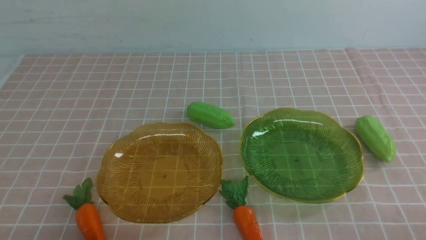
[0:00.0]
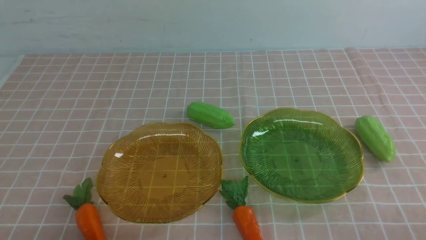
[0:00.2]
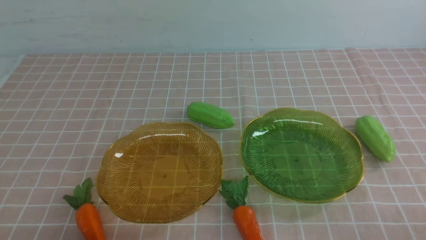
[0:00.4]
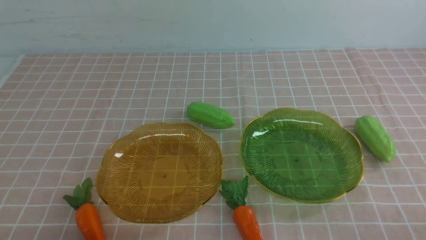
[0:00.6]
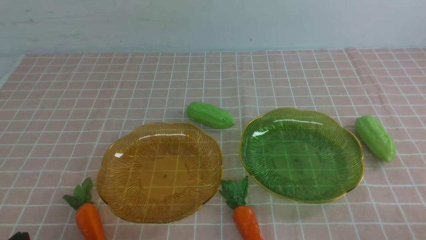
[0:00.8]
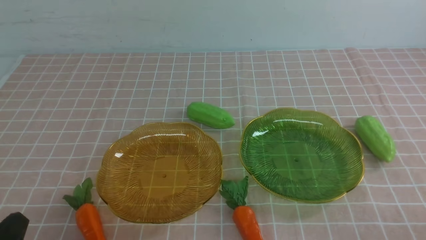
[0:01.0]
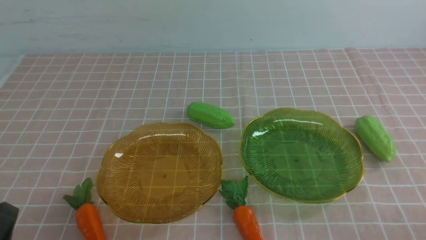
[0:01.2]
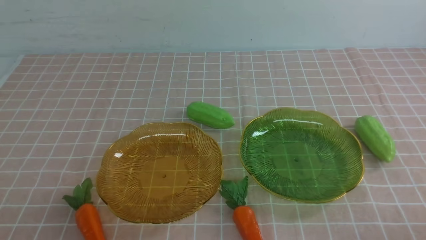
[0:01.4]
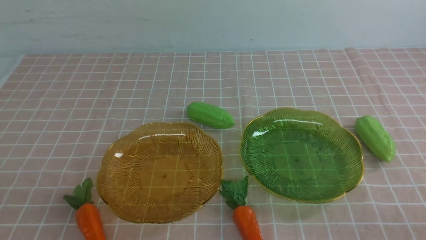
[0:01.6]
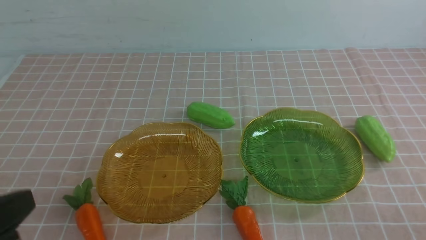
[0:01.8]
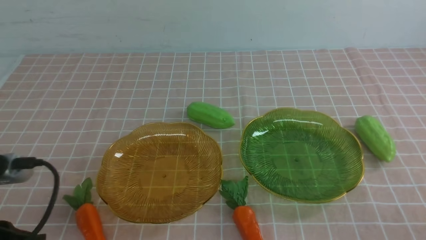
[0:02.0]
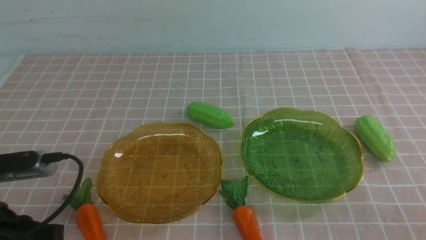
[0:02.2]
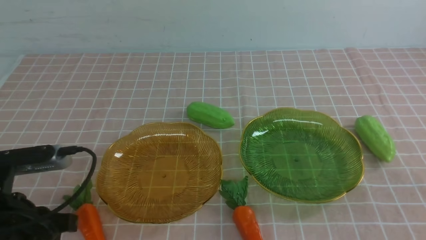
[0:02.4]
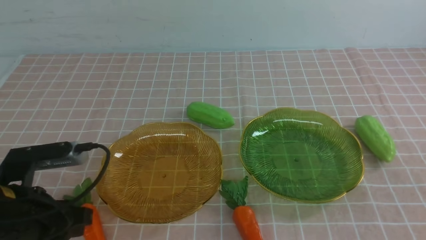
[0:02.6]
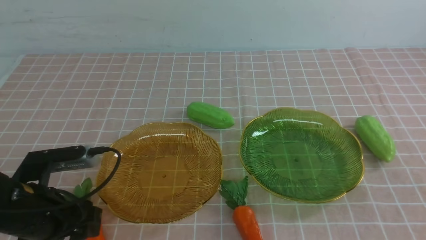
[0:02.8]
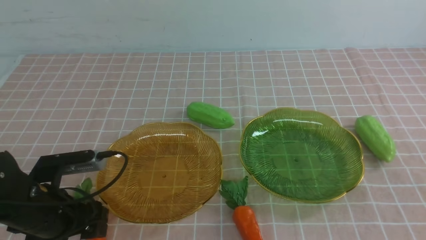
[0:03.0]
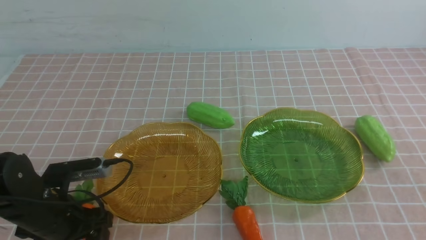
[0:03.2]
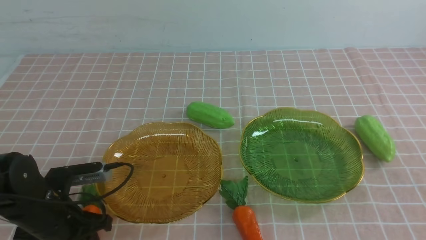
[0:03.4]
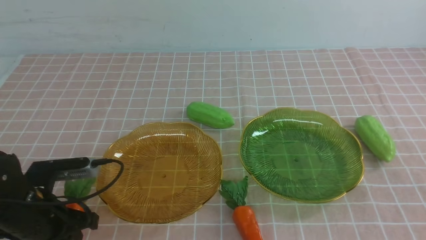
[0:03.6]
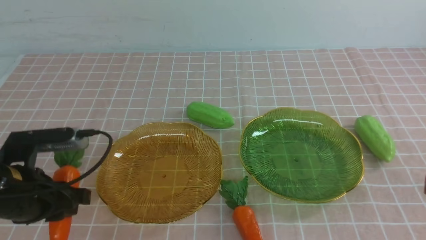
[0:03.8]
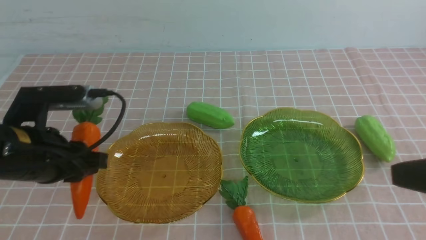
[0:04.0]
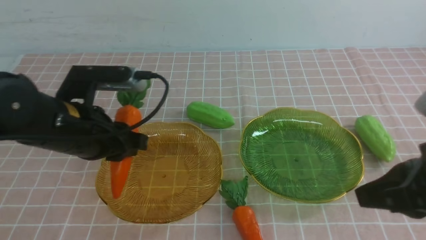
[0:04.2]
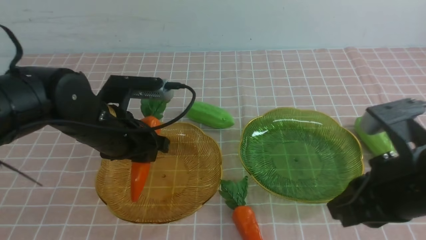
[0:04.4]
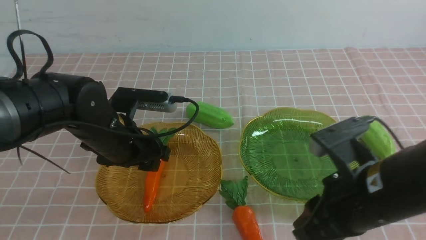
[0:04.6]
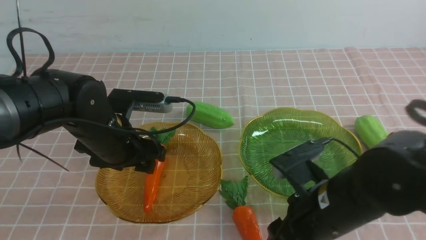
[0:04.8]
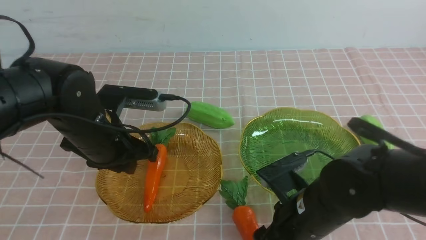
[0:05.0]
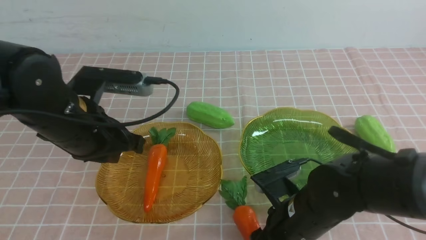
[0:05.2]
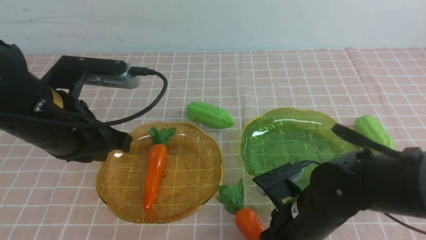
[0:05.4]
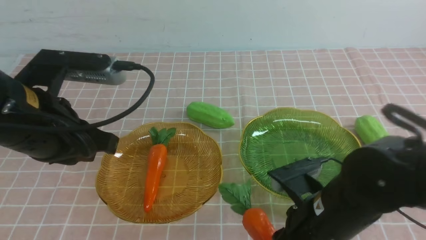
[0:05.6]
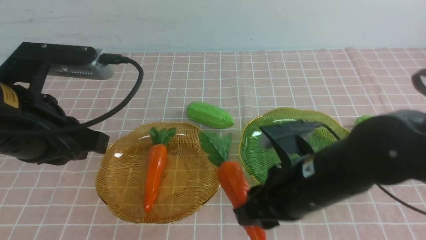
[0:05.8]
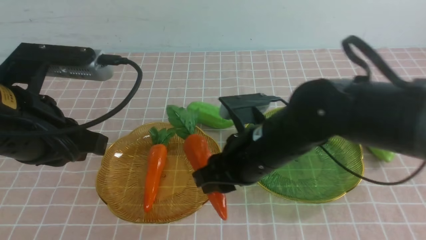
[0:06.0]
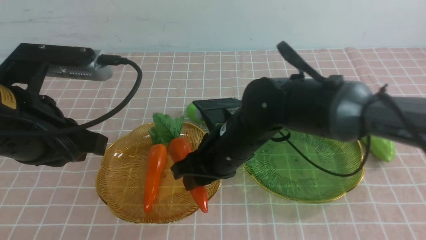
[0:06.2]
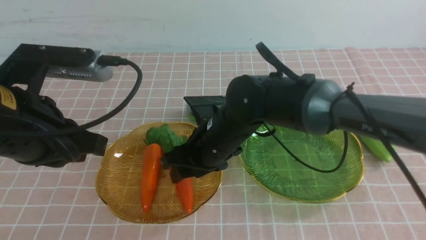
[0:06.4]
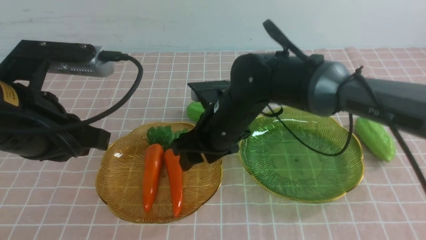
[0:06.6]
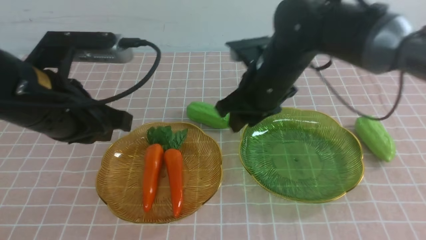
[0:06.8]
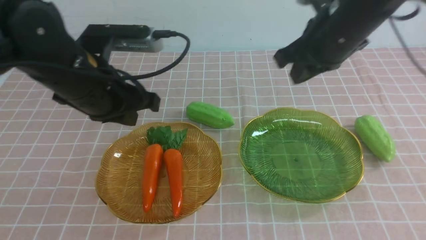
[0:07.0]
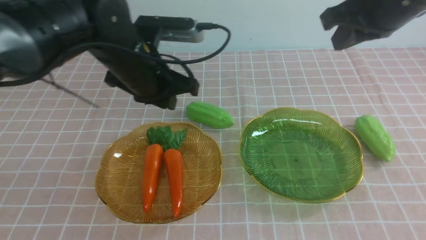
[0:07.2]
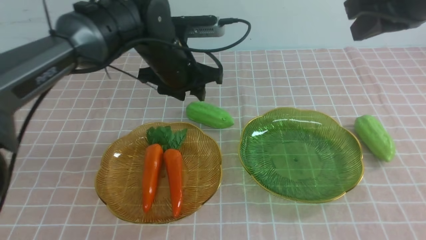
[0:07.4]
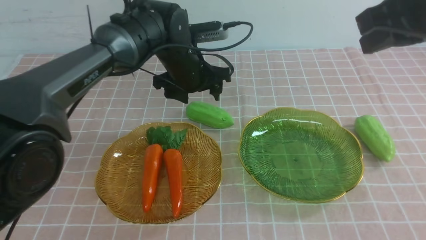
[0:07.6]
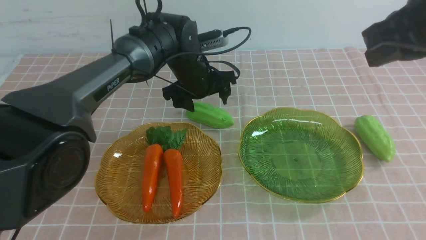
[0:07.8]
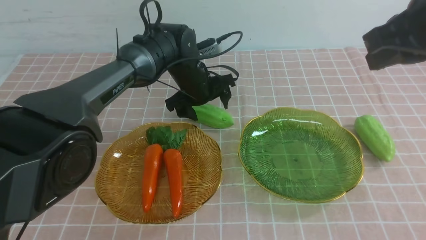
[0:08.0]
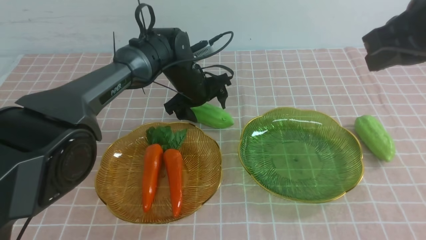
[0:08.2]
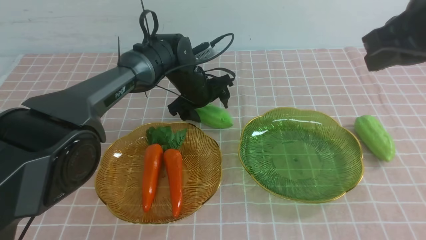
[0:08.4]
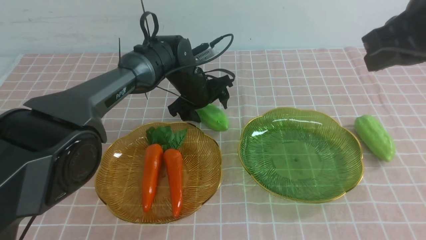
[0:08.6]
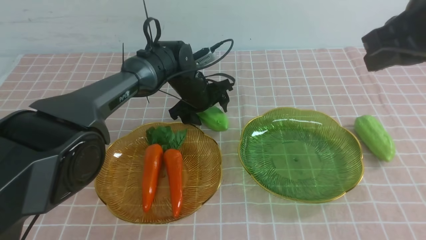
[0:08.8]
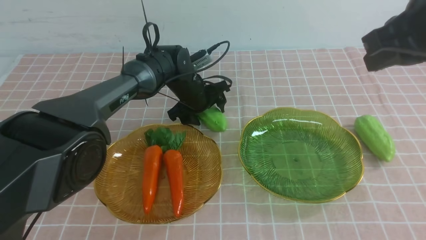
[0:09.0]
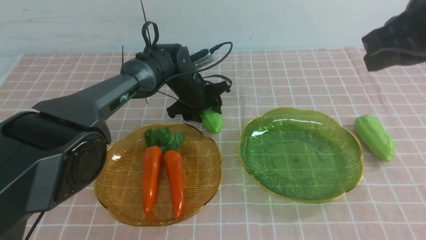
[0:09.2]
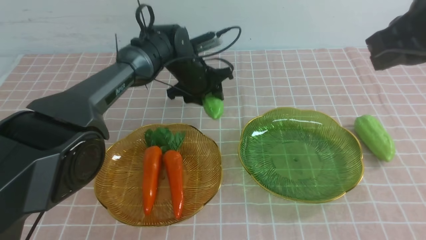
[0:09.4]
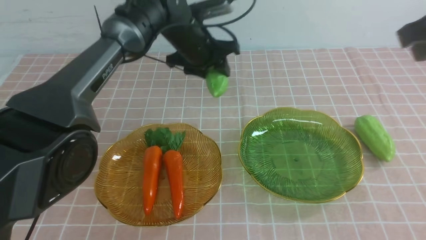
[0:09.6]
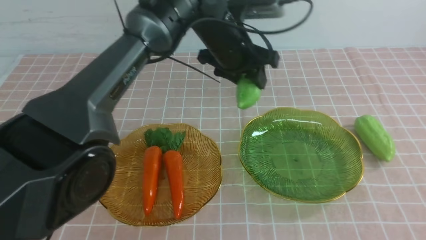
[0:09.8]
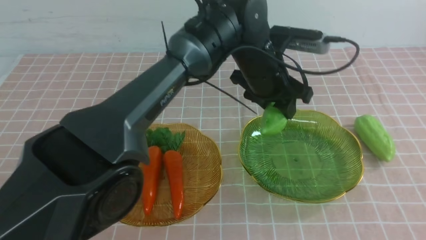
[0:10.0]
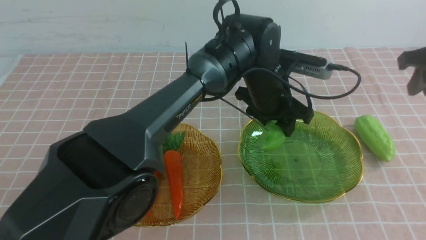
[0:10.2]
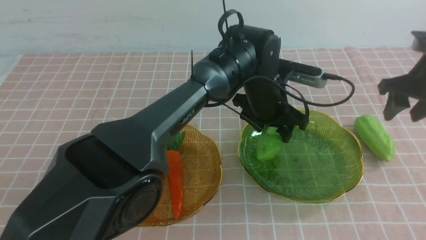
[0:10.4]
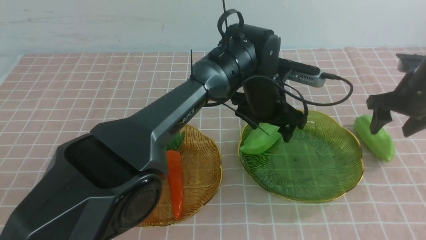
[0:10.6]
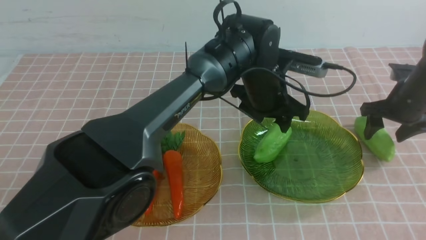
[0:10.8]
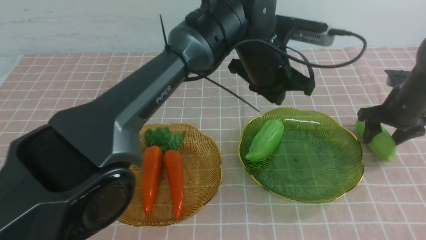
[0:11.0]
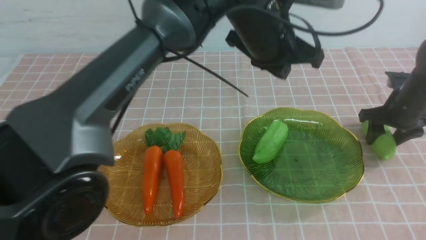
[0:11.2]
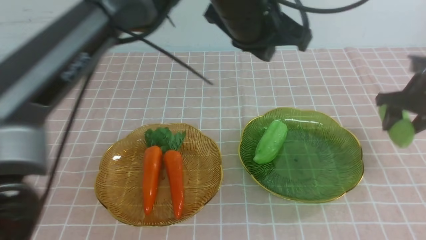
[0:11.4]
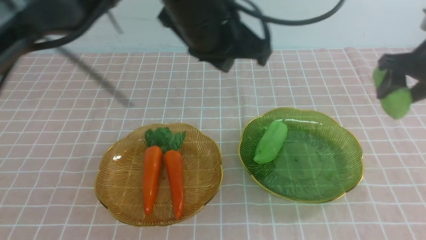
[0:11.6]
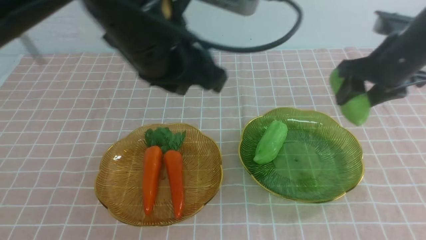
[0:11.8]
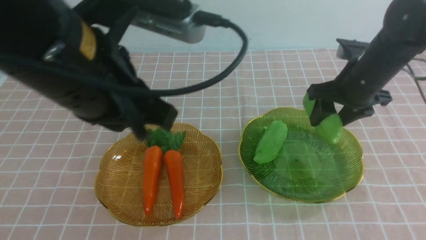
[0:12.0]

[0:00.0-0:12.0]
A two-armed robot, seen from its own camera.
Step, 0:00.0 to 0:04.6: use the left arm to grab a carrot and put it into the left plate.
Step, 0:04.8 to 0:06.4: use the right arm to grab a carrot and put it into the left plate.
Step, 0:06.6 to 0:10.6: use the left arm to grab a chayote and put it into the right plate.
0:01.6 to 0:03.0: The left gripper goes about 20 cm forward and downward, and opens its fingers.
0:03.0 to 0:04.4: The left gripper shifts about 15 cm upward, to the right and forward; the right gripper travels to the left, downward and forward by about 25 cm, and opens.
0:04.4 to 0:06.0: The left gripper goes roughly 10 cm upward and backward. The right gripper shifts approximately 15 cm forward, to the left and upward.
0:06.0 to 0:07.6: The right gripper heads to the right and upward, covering some 25 cm, and closes. The left gripper moves forward, downward and to the right, about 30 cm, and opens.
0:07.6 to 0:09.0: The left gripper closes its fingers.
0:09.0 to 0:10.4: The right gripper is displaced downward and forward by about 25 cm, and opens its fingers, while the left gripper heads to the right and backward, covering about 15 cm.
0:10.4 to 0:12.0: The right gripper shifts some 10 cm to the left, while the left gripper goes about 35 cm backward, to the left and upward, and closes.

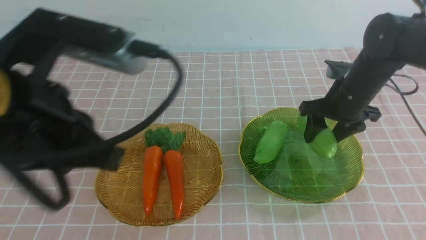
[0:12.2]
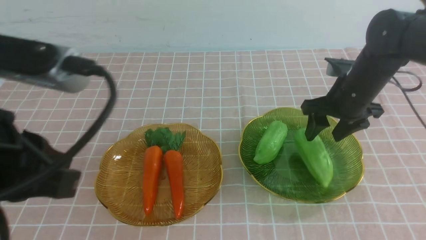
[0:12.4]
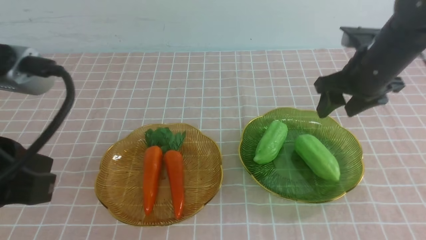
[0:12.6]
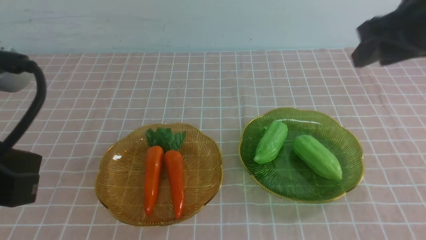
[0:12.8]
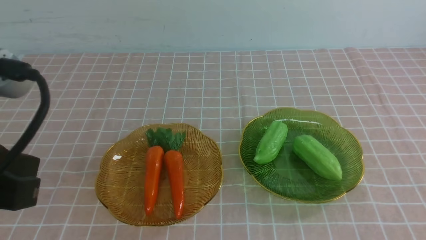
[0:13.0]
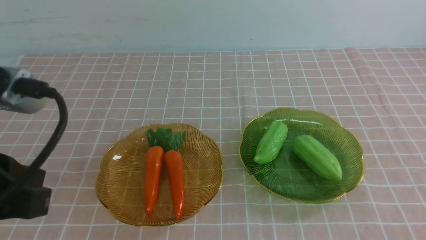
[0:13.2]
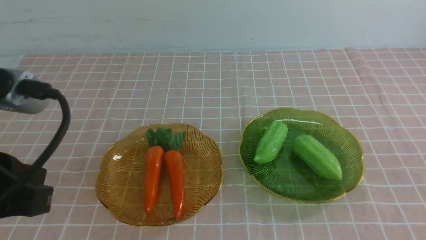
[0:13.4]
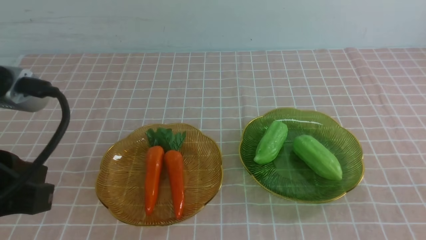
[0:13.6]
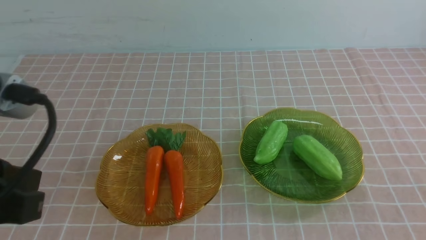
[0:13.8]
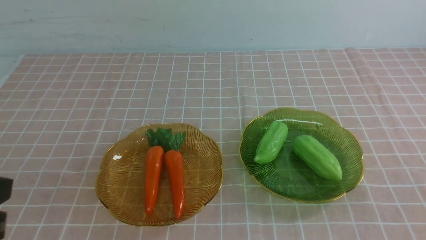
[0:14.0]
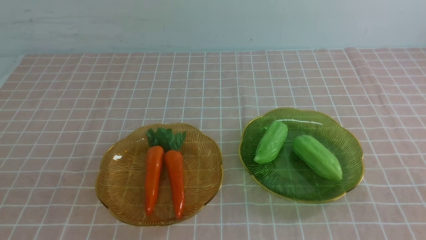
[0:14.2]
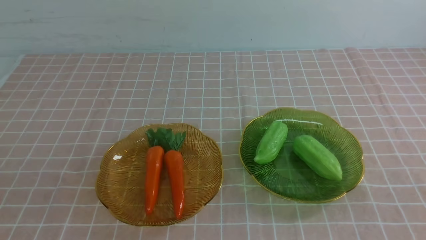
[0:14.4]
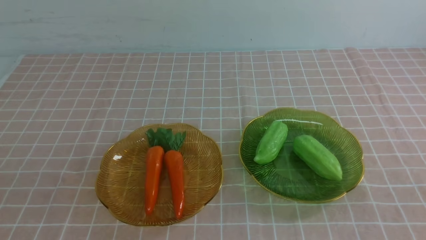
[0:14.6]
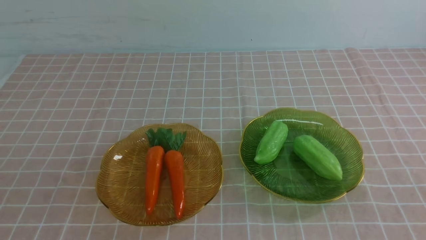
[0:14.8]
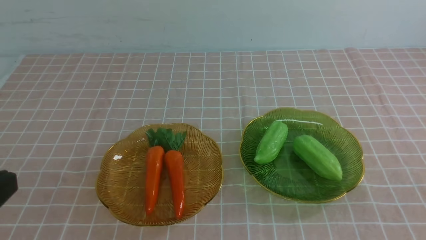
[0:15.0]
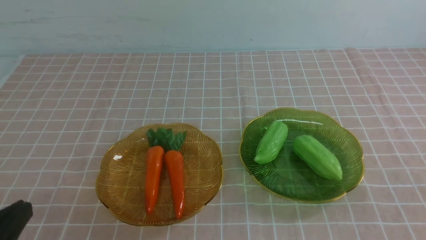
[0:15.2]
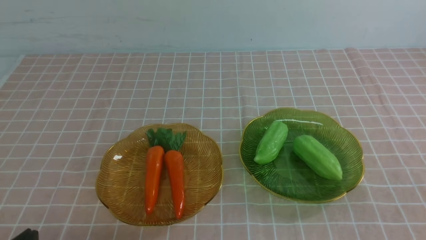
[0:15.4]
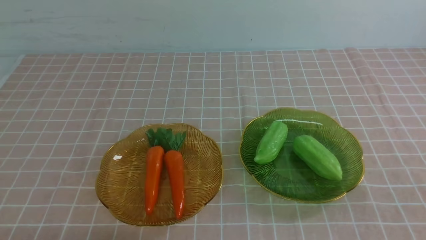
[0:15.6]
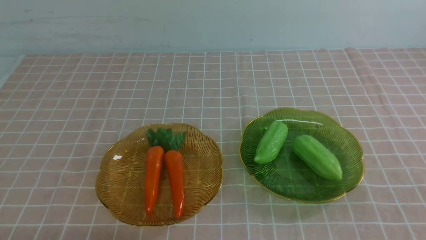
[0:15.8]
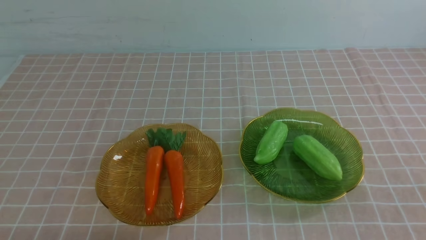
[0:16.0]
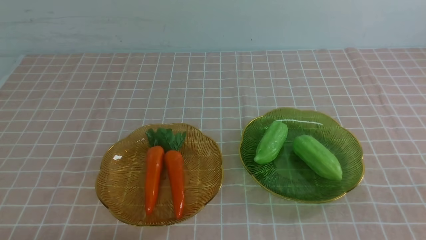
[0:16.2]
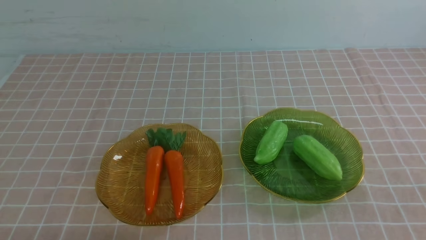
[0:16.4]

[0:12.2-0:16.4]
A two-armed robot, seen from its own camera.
0:12.2 to 0:13.6: The left gripper moves about 5 cm. The right gripper is displaced backward by roughly 35 cm, and closes.
0:13.6 to 0:15.0: The left gripper travels downward by approximately 5 cm.
